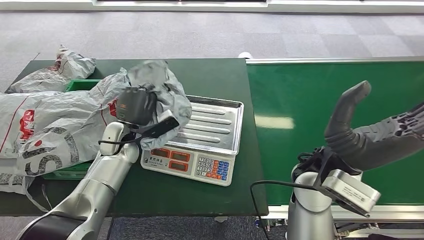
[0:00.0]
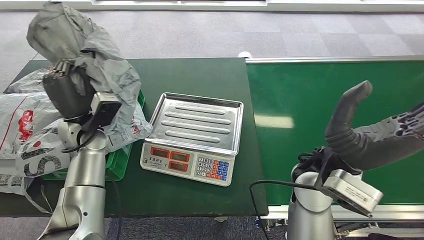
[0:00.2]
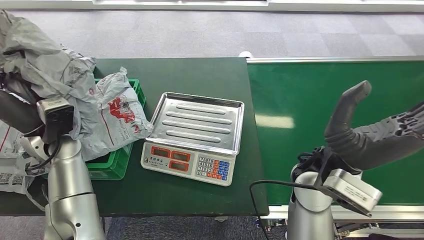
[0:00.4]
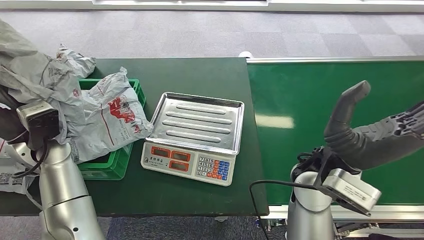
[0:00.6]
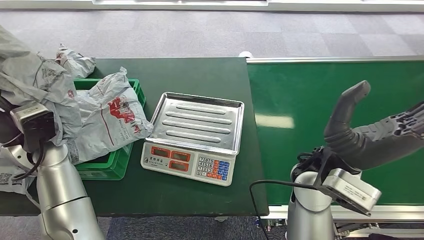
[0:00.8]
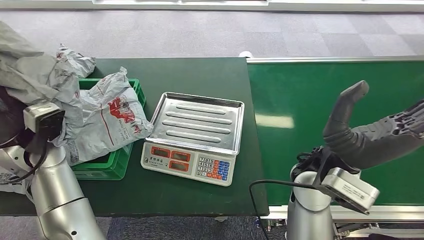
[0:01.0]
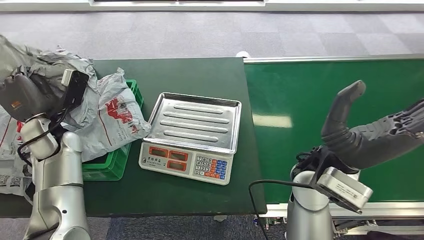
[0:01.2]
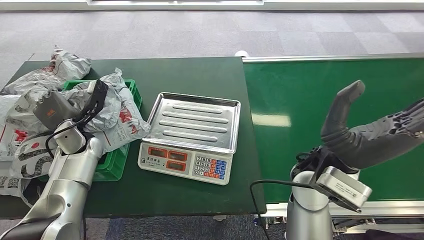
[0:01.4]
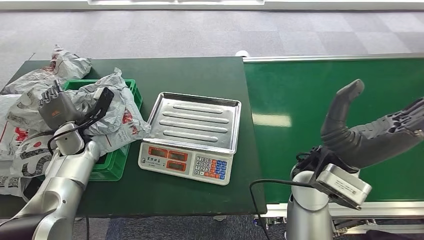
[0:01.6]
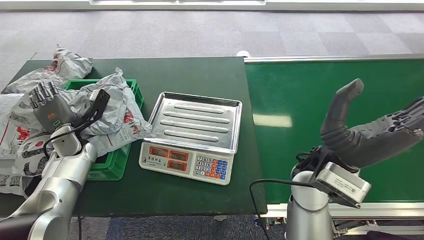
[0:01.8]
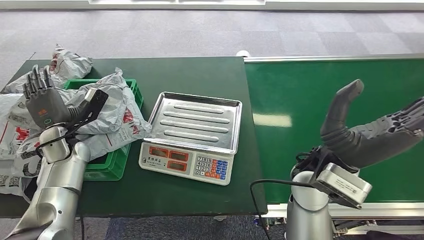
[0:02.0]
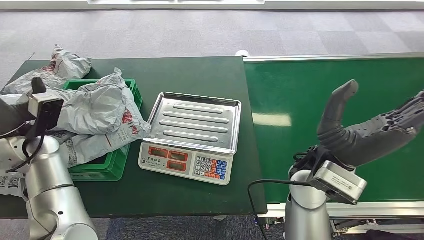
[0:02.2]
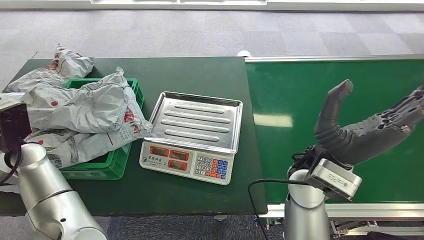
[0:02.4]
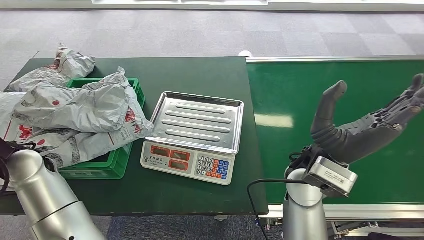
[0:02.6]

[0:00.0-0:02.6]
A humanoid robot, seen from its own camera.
Step, 0:00.8 to 0:02.6: Place the package into the parcel locker.
